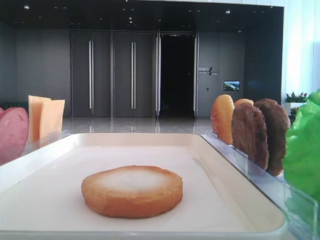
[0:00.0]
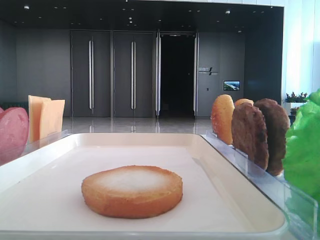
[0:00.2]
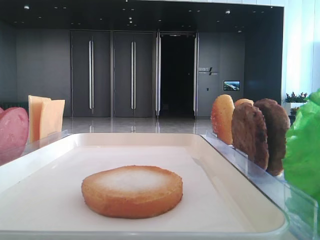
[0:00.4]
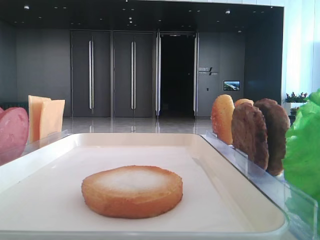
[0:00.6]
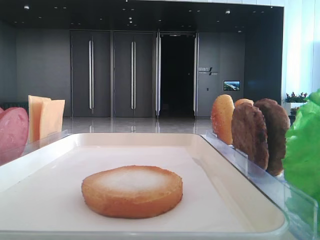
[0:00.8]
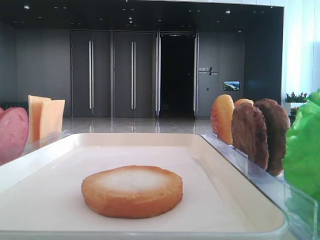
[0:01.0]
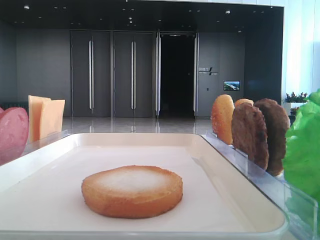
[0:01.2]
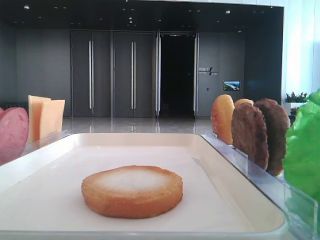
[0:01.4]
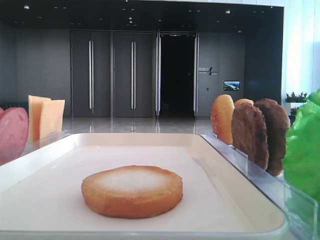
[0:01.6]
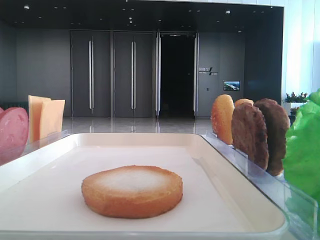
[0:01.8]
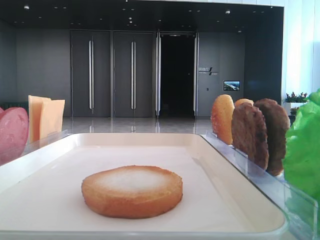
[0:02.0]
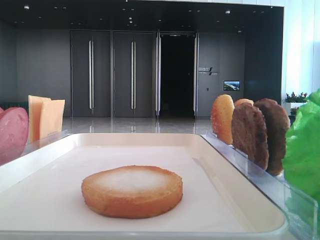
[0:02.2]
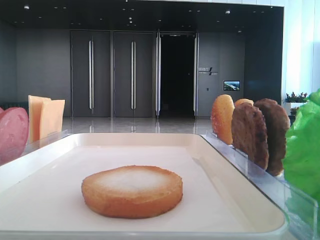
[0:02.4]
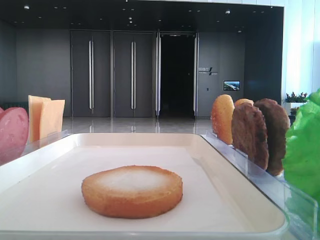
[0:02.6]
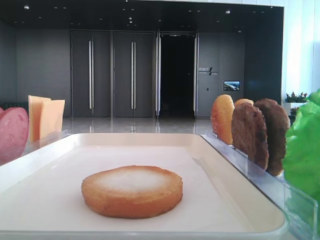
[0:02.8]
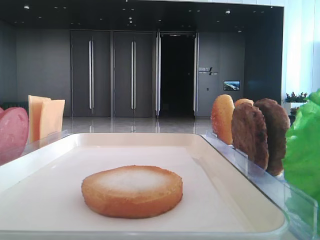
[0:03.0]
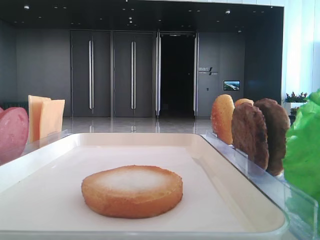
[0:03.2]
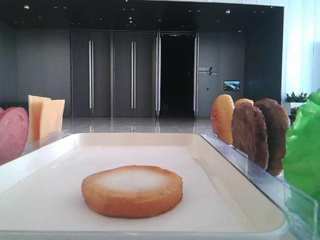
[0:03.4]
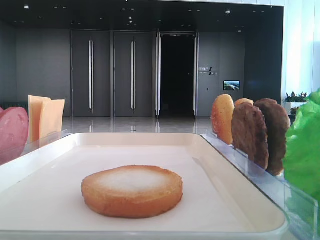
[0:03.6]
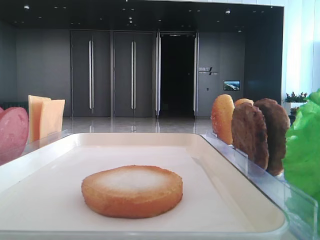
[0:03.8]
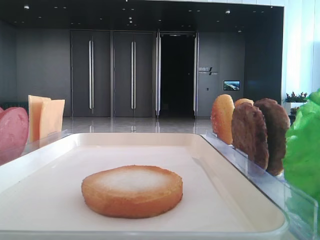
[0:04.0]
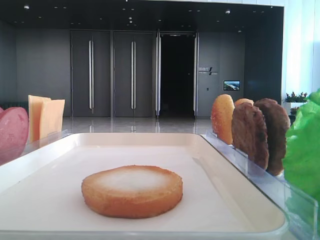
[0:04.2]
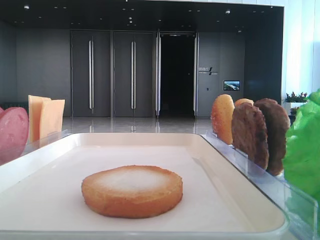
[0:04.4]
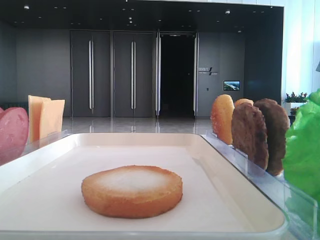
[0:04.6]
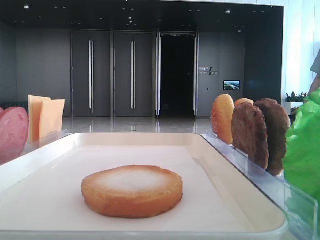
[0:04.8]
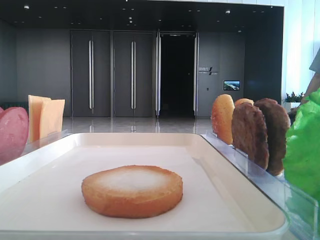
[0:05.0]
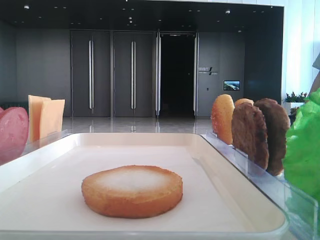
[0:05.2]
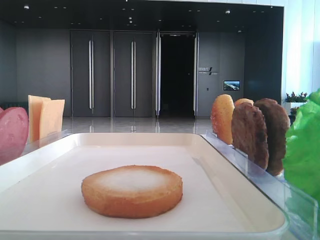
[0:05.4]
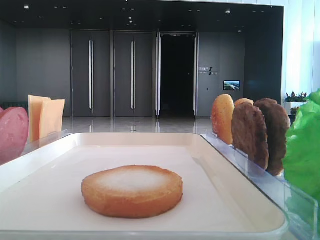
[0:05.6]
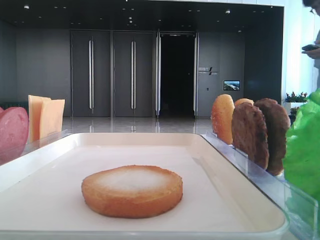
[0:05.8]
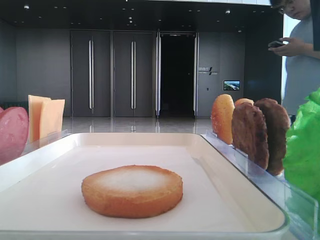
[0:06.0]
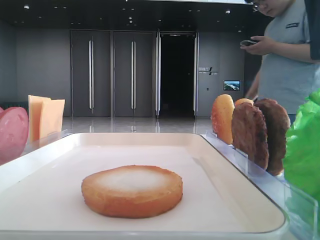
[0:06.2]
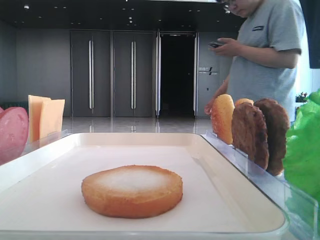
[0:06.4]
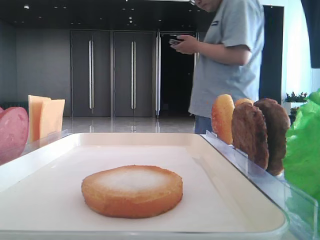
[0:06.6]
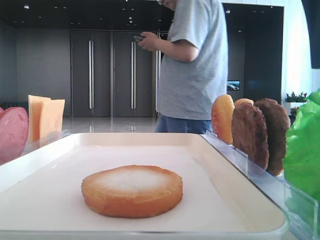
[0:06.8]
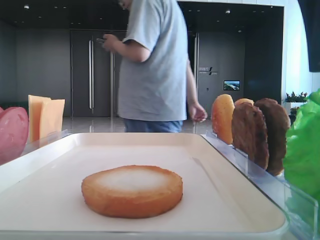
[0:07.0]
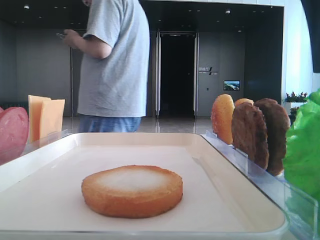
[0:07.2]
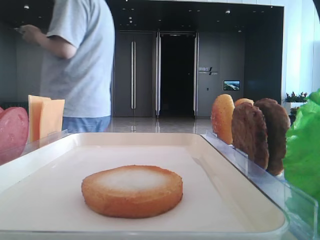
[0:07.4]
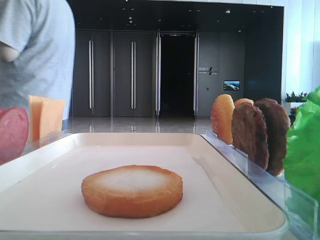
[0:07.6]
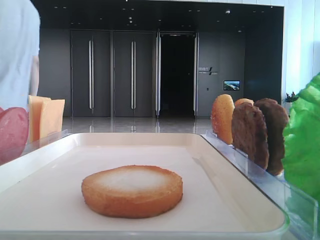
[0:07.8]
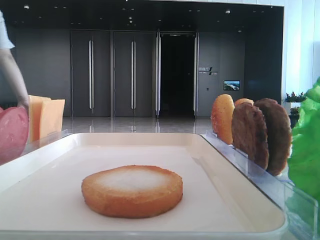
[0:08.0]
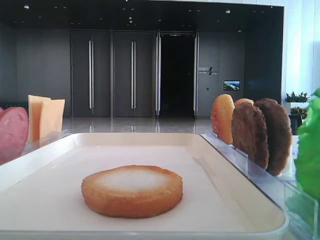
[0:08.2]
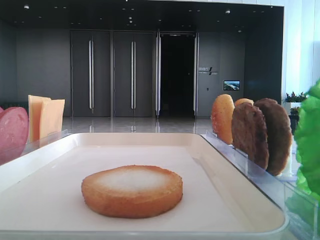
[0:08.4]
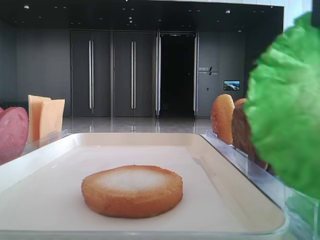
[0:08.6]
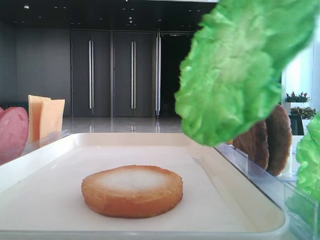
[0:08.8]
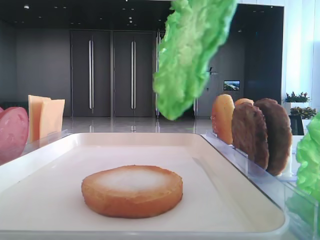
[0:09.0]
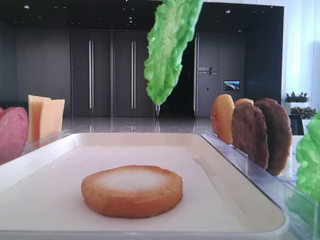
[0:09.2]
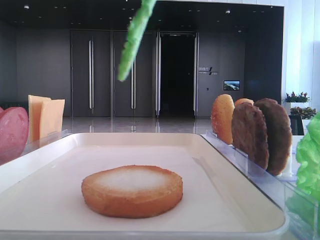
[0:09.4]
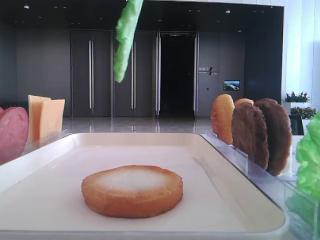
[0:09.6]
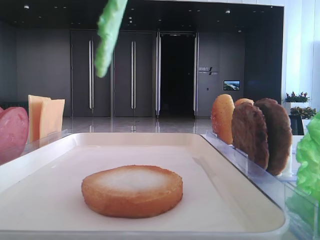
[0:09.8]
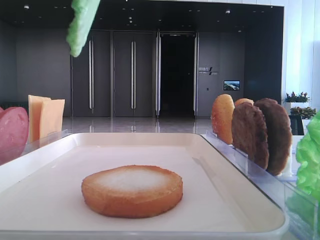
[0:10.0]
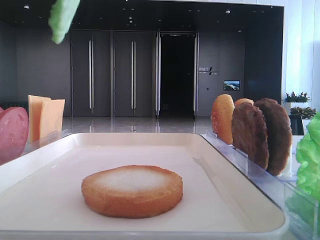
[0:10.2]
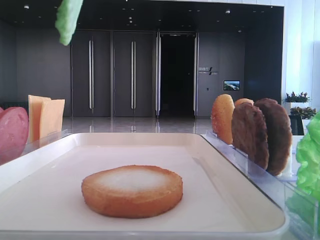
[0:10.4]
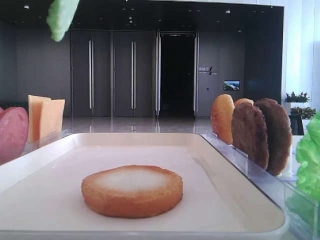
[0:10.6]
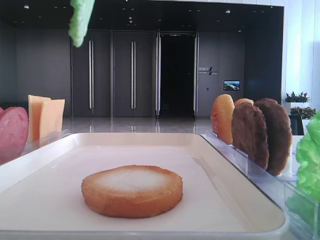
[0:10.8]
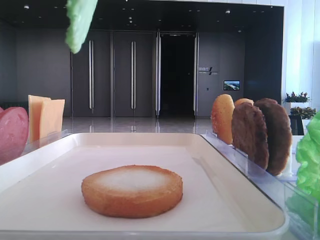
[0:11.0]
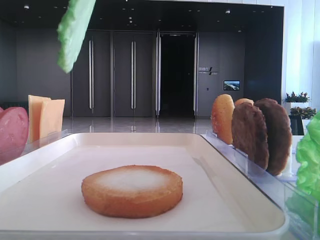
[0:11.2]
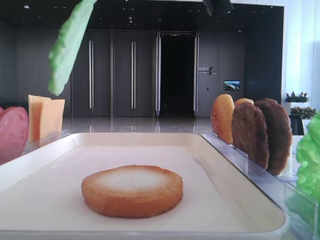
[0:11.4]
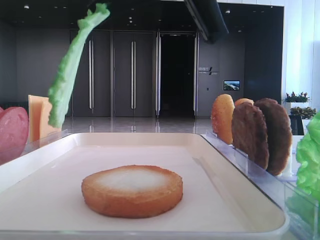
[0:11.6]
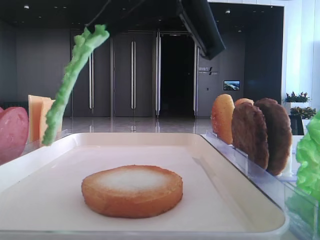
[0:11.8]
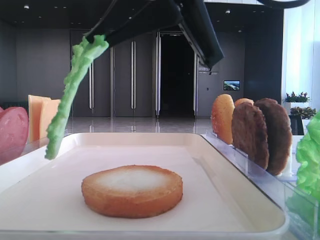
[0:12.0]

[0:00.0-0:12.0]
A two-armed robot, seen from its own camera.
Step, 0:00.0 to 0:08.2: Grab the lettuce leaf with the right hand.
0:04.4 to 0:06.0: The right gripper goes roughly 10 cm to the left, forward and downward.
0:06.0 to 0:07.6: The right gripper closes its fingers.
0:07.6 to 0:09.0: The right gripper ends up roughly 5 cm from where it was.
0:10.4 to 0:12.0: The right gripper moves downward, some 10 cm.

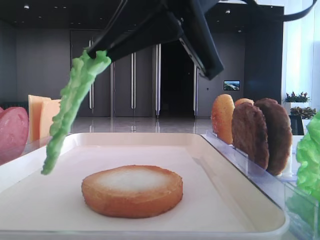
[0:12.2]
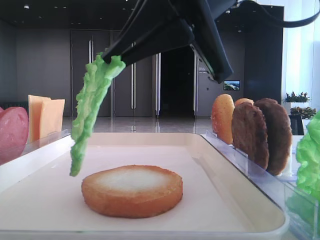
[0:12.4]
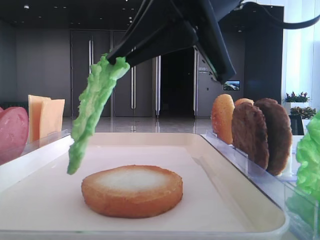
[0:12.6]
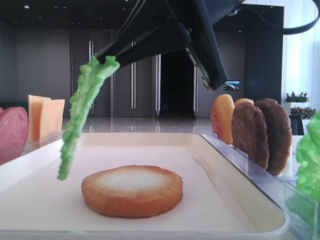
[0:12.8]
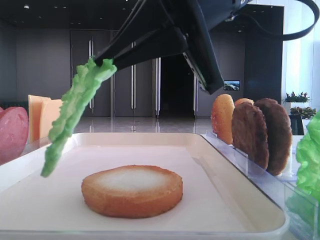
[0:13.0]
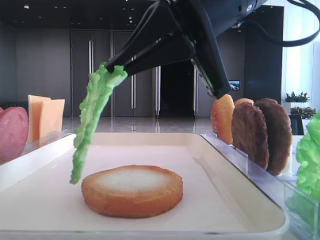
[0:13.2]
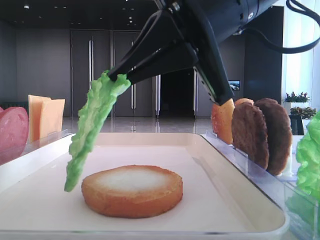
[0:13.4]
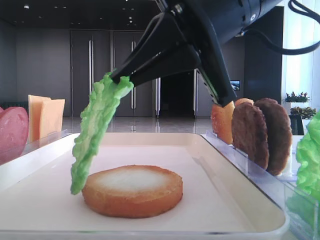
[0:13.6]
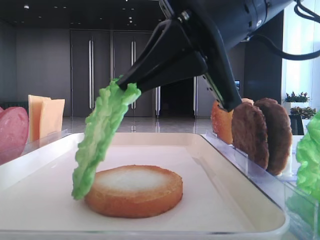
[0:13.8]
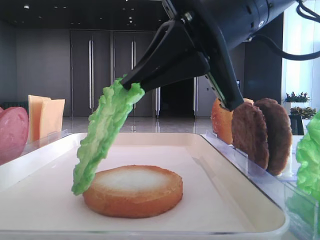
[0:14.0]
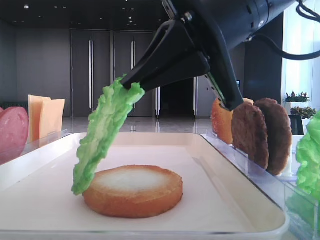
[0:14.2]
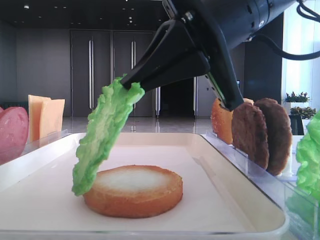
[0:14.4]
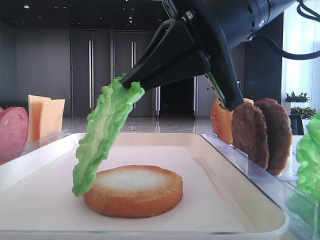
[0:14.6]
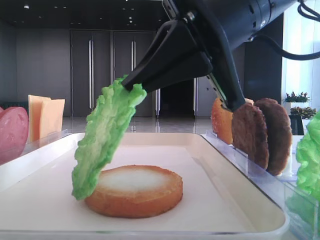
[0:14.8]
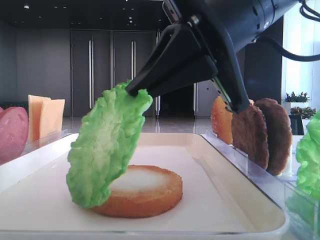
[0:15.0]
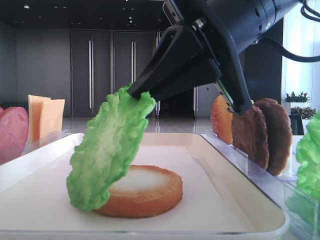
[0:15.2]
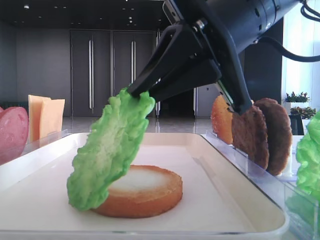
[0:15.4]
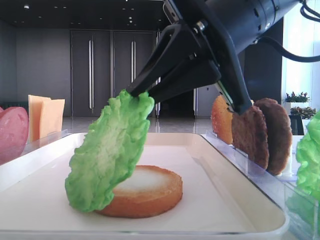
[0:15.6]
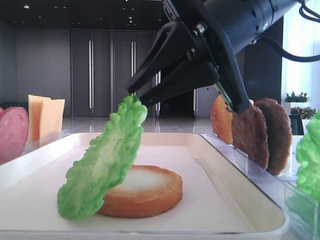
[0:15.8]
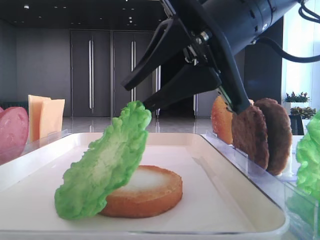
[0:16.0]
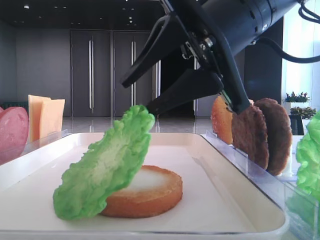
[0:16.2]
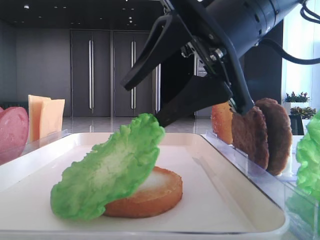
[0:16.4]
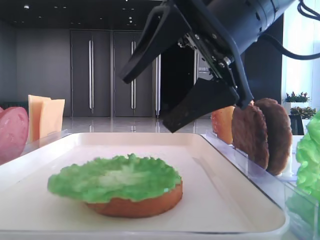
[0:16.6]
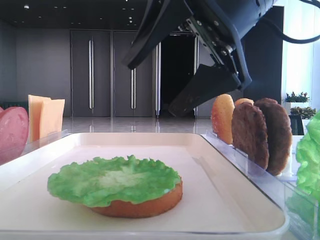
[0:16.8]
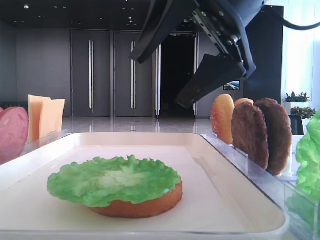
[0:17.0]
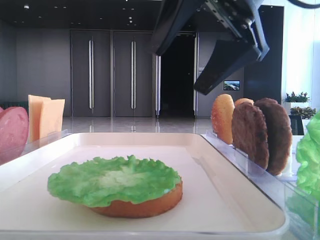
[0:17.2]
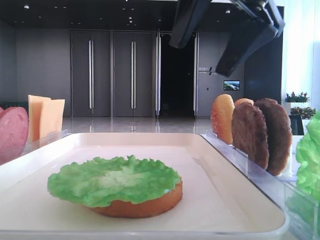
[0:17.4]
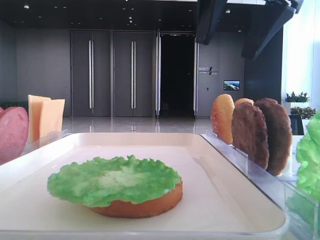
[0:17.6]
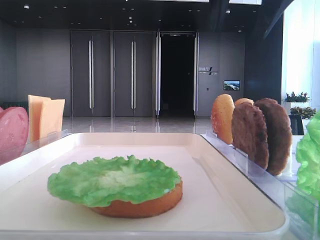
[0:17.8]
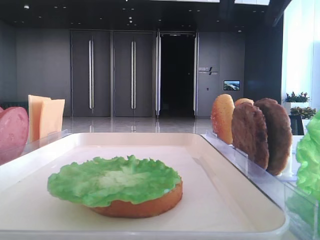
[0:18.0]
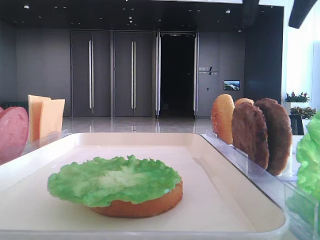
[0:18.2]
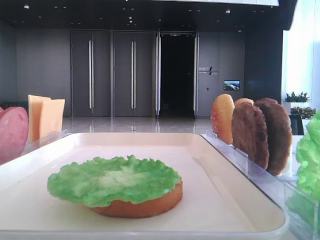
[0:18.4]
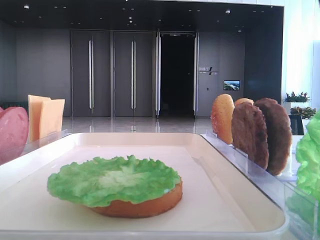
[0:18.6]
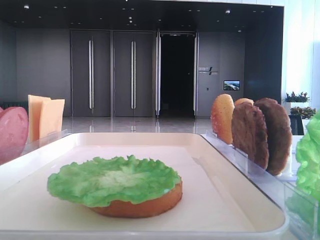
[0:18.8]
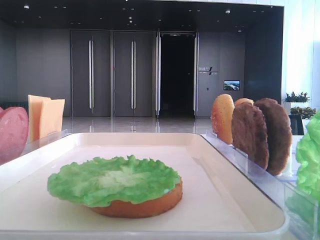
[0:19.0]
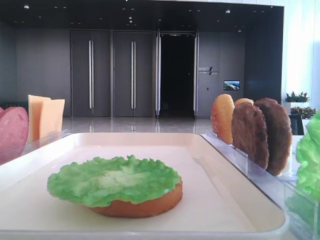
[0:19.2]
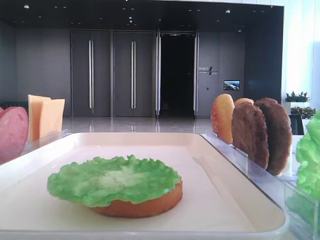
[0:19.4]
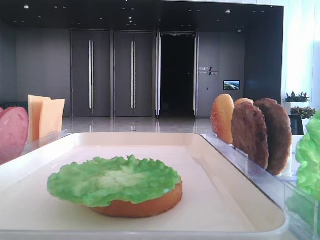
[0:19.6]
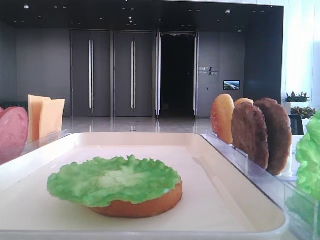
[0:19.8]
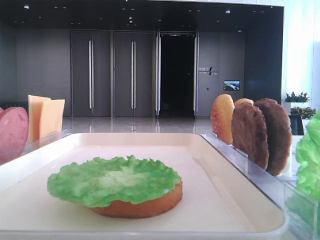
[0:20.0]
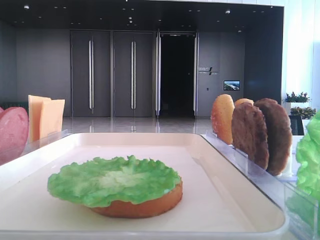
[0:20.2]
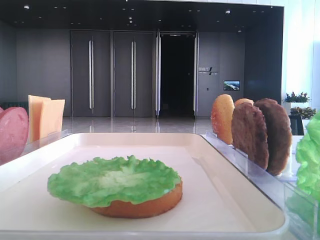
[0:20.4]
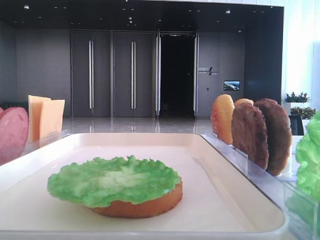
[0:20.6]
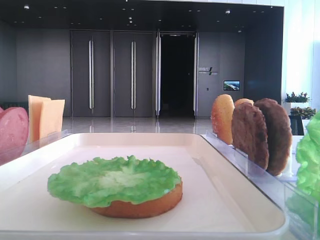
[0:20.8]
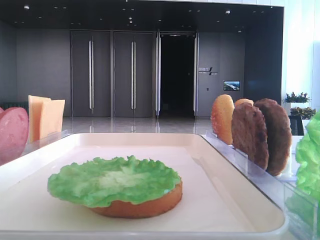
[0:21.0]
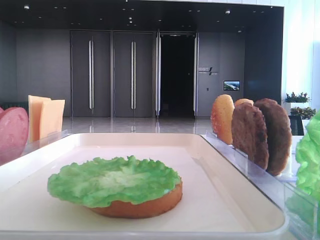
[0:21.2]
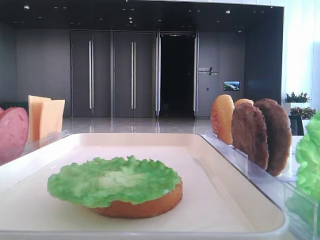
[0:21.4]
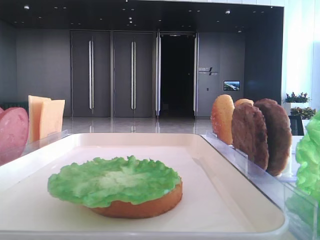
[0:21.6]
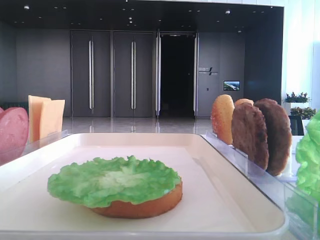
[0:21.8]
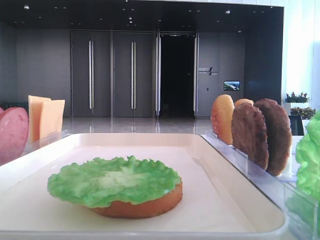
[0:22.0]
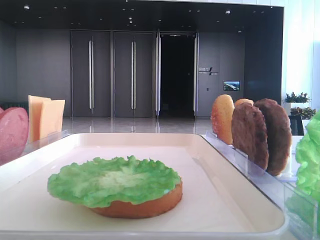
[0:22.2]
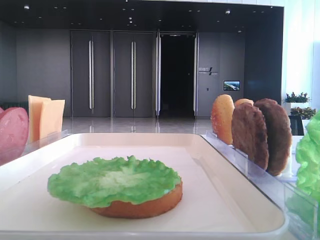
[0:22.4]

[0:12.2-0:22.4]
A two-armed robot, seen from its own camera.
Step, 0:12.2 to 0:16.4: Place the lettuce leaf on the bottom bread with the right hand.
0:12.2 to 0:13.6: The grippers move only a little.
0:13.6 to 0:15.2: Neither gripper changes place.
0:15.2 to 0:16.6: The right gripper opens up.
0:16.6 to 0:18.0: The right gripper goes some 15 cm upward and to the right.
0:19.4 to 0:21.0: The right gripper shifts approximately 30 cm backward.
